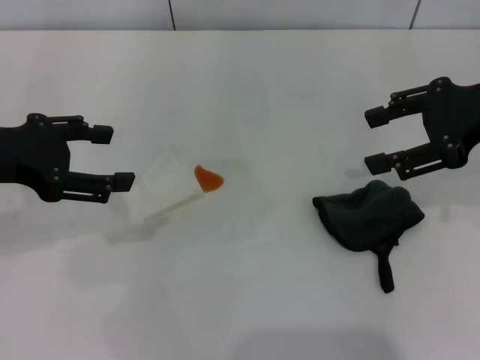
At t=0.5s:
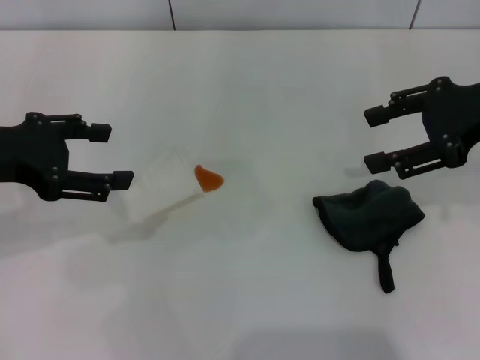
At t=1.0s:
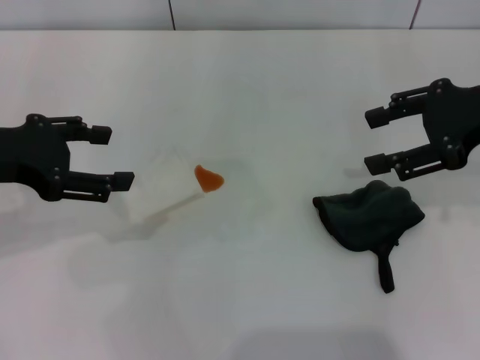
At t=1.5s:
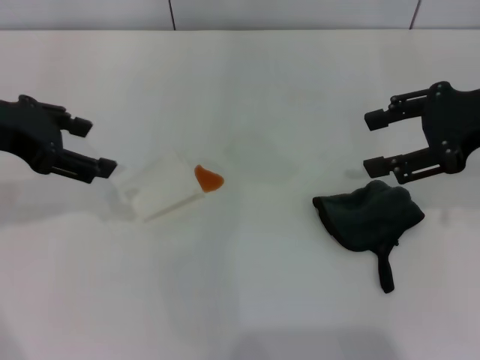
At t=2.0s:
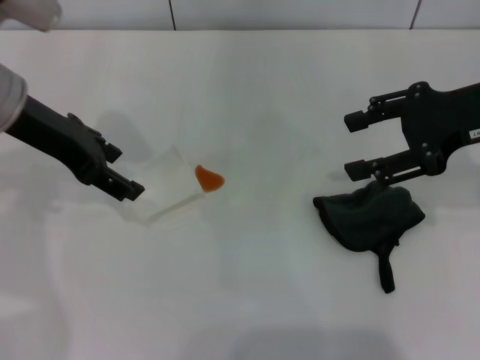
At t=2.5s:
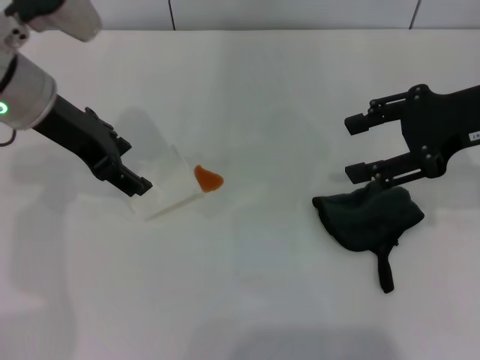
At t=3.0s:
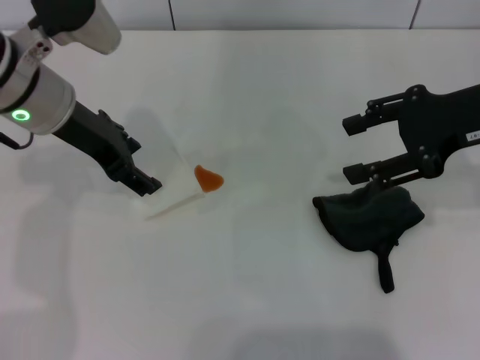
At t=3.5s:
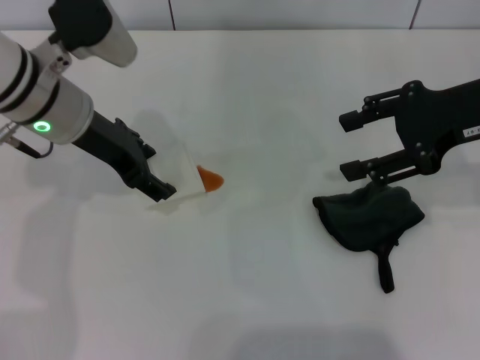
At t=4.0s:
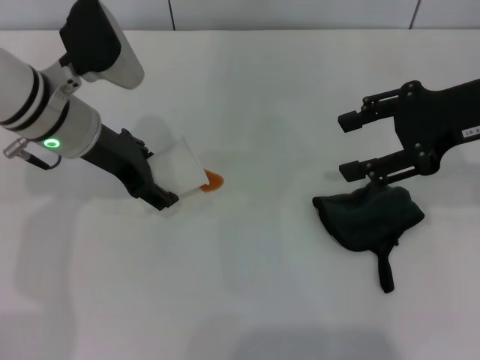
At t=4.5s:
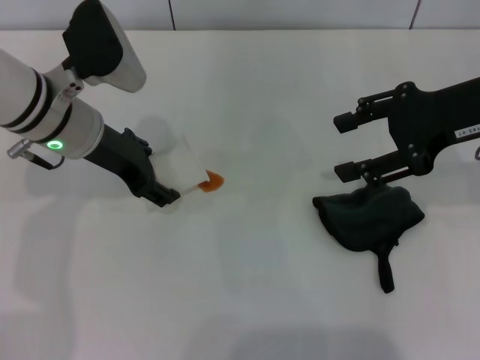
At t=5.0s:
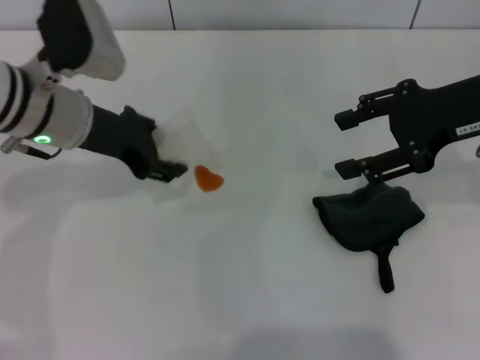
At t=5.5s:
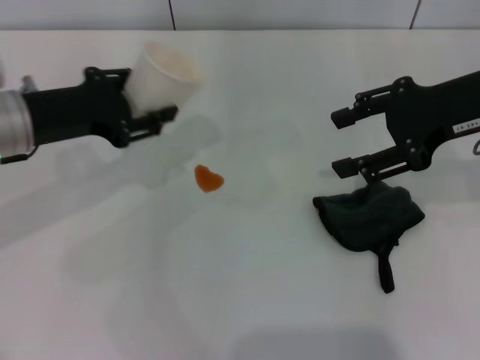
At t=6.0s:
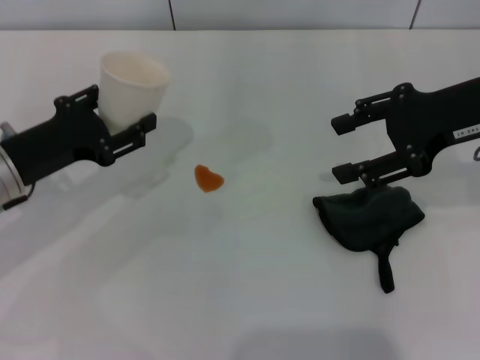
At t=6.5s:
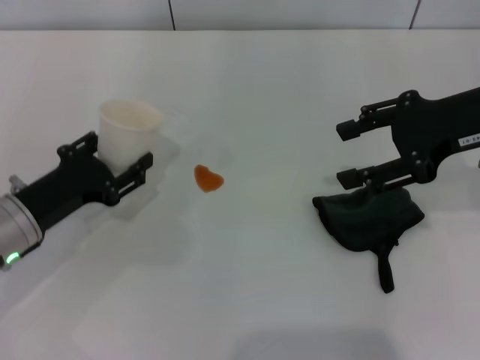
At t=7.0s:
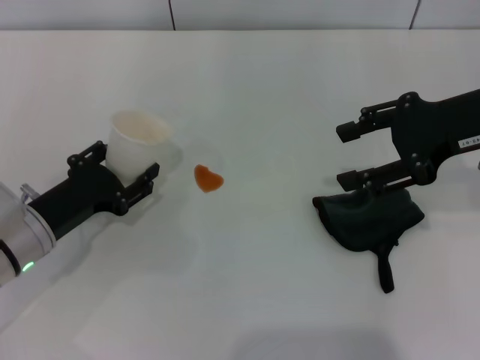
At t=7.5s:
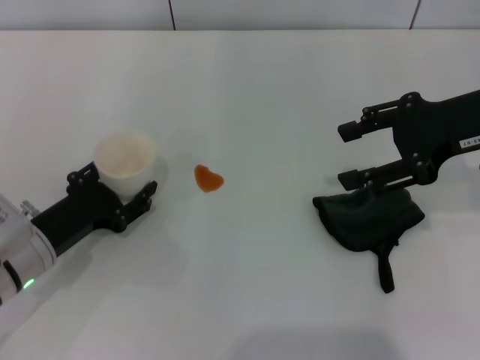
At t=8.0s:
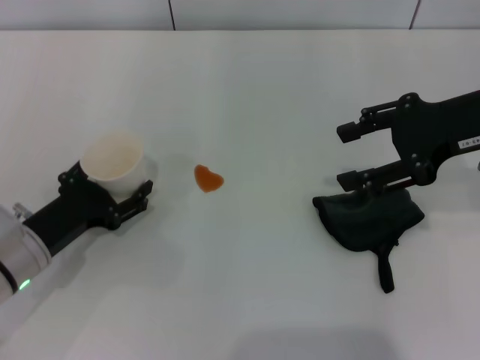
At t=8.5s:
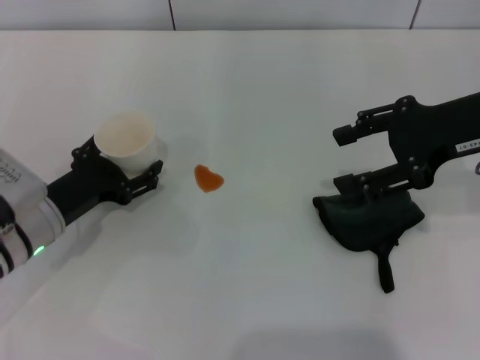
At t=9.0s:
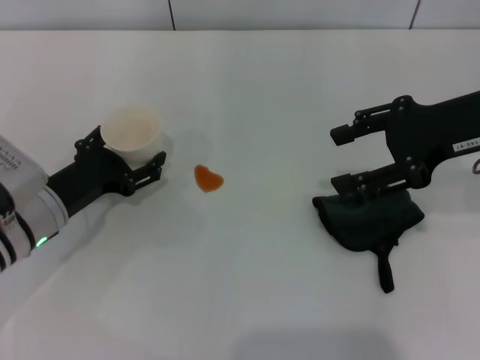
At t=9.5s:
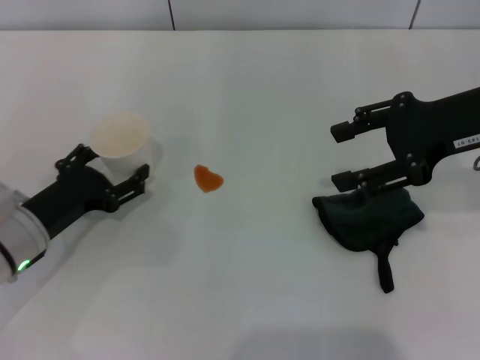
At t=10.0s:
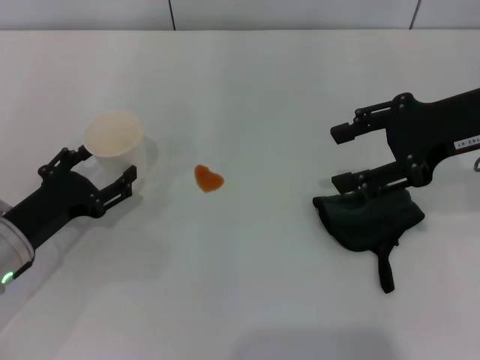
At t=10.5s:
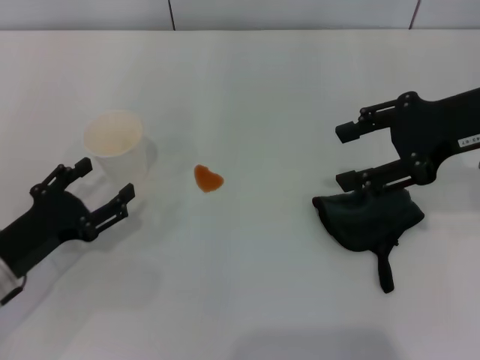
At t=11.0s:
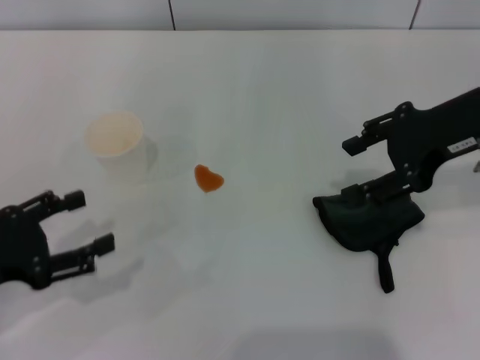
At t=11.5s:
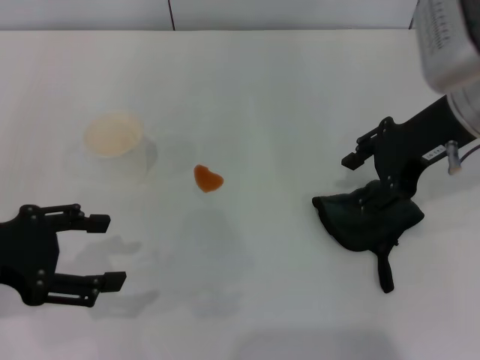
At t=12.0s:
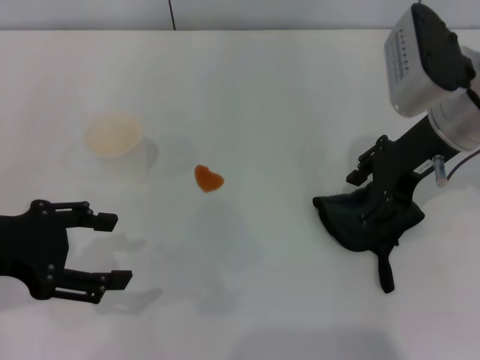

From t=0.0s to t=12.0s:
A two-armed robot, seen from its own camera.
Step, from t=0.0s to t=4.5s: Grasp the paper cup with the left gripper.
Step, from t=5.0s to t=10.0s: Stand the paper cup upright with the left gripper.
From t=0.0s to t=2.0s: The left gripper travels forward and to the right by approximately 10 cm.
From t=2.0s to t=4.0s: The left gripper goes roughly 5 cm downward.
From t=4.0s to t=6.0s: The left gripper shifts approximately 10 cm to the left, backward and downward, and closes.
From t=6.0s to t=8.0s: The left gripper heads downward and backward, covering about 10 cm.
From t=8.0s to t=10.0s: The left gripper opens up.
From t=10.0s to t=12.0s: The left gripper travels upward by approximately 15 cm. The right gripper travels to the left by some 5 cm.

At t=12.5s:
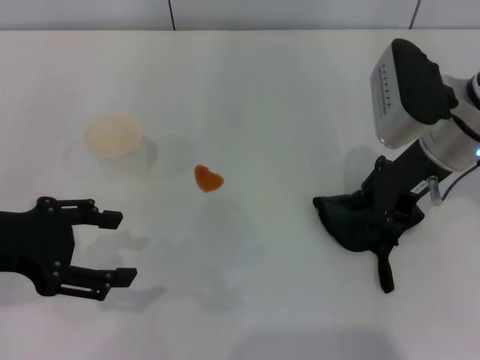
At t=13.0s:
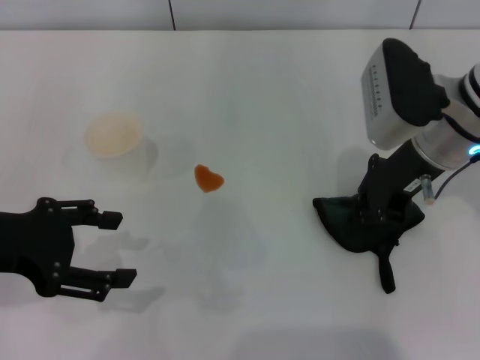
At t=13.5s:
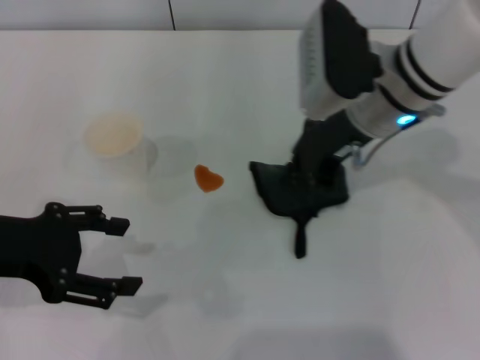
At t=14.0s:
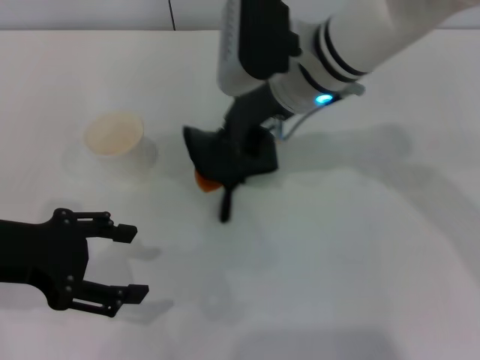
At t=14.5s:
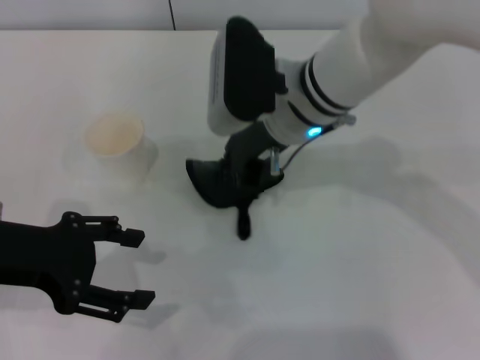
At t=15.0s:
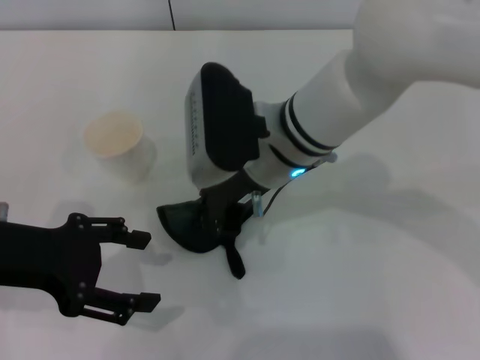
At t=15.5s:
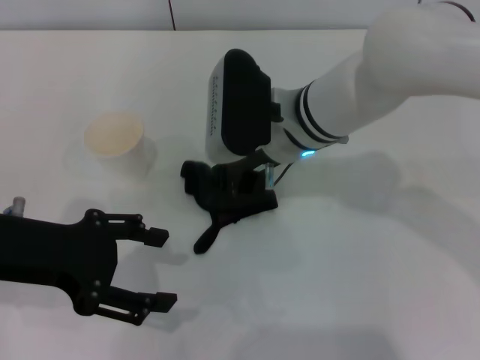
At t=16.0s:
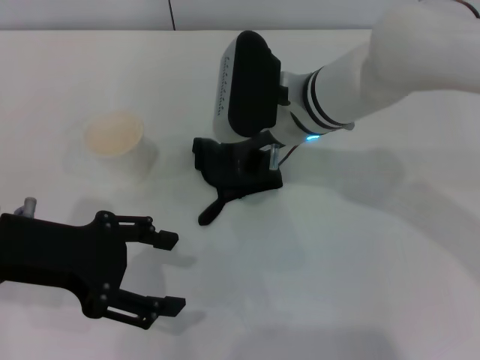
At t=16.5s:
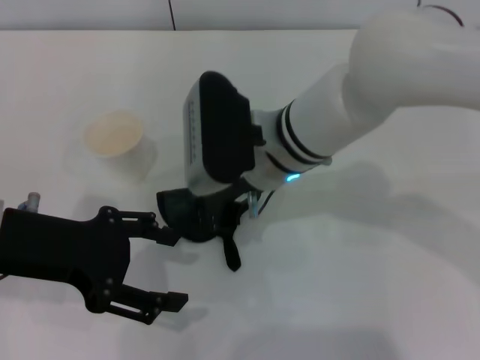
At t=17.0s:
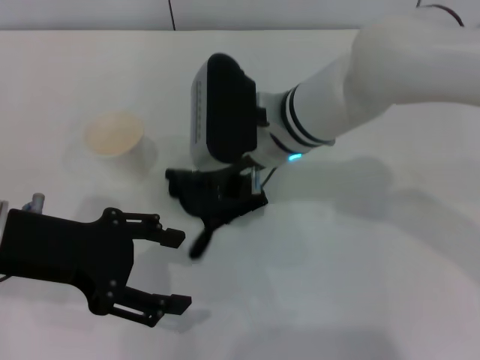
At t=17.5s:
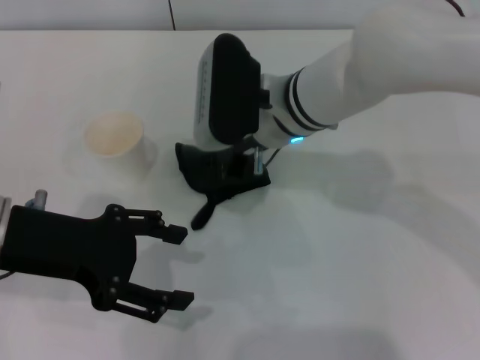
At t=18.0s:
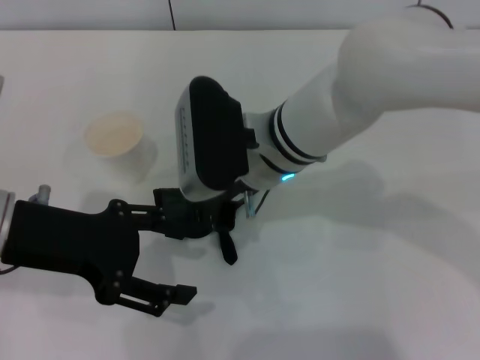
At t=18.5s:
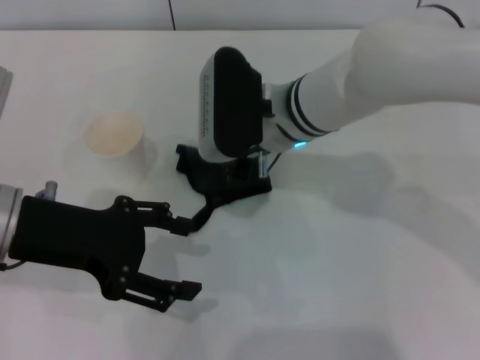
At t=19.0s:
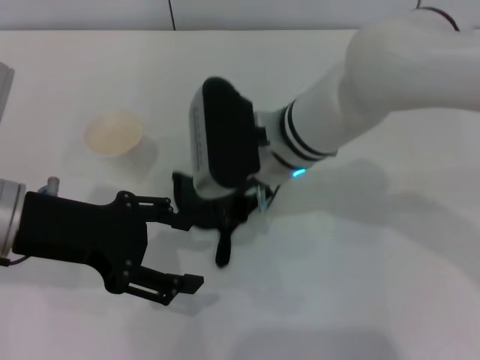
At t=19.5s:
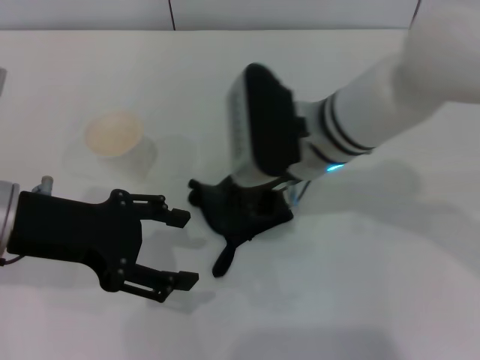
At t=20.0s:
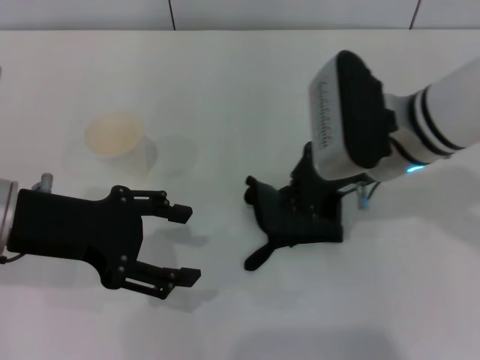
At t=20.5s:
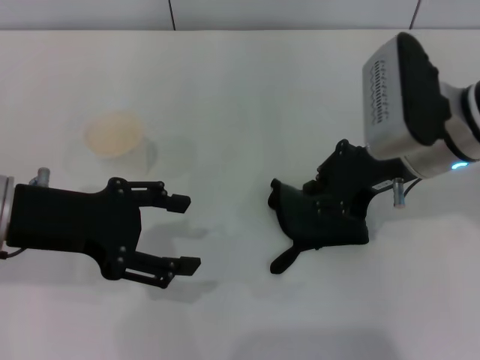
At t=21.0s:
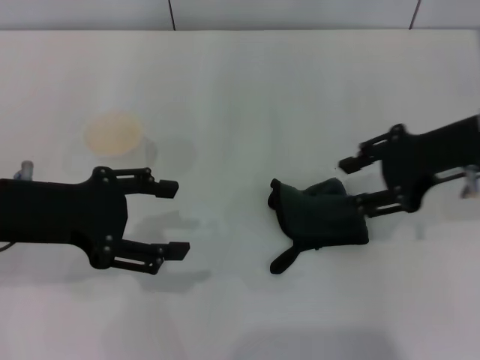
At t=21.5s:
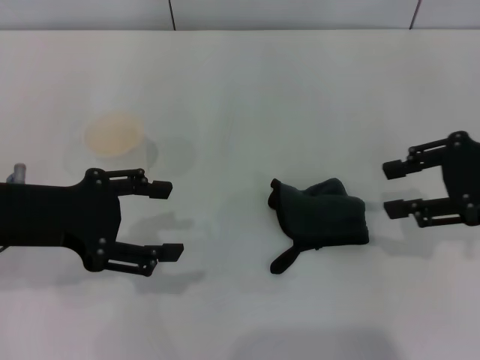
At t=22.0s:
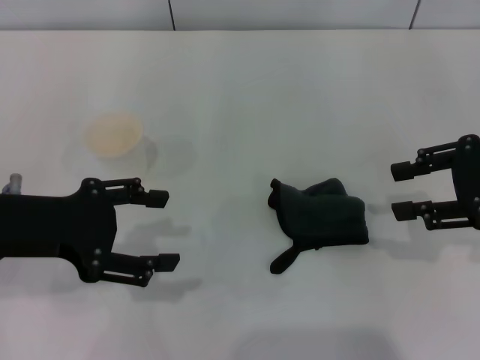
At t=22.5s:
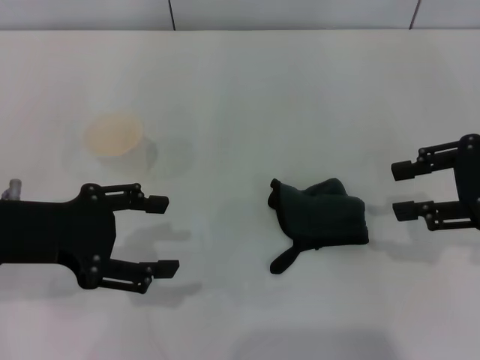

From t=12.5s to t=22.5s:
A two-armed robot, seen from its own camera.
Step, from t=13.0s to t=20.0s: Wipe the stains off the table with the right gripper.
Step, from t=20.5s to t=21.5s: Place the rag on the table with the right gripper.
From t=12.5s to t=14.5s: The right gripper heads to the left, covering roughly 15 cm, and closes up.
From t=14.5s to t=16.5s: The right gripper swings forward and backward, roughly 5 cm each way, with 2 reversals.
From t=16.5s to t=18.5s: The grippers move only a little.
From t=18.5s to t=20.5s: The right gripper goes roughly 15 cm to the right.
From t=20.5s to t=22.5s: The right gripper moves to the right, about 15 cm, and opens its fingers.

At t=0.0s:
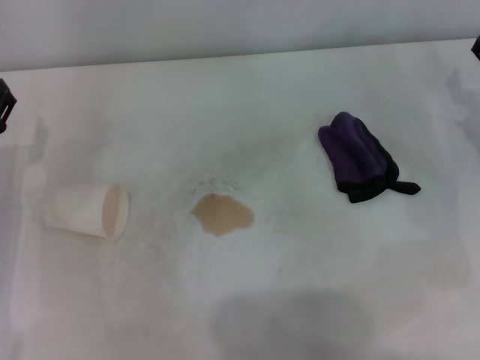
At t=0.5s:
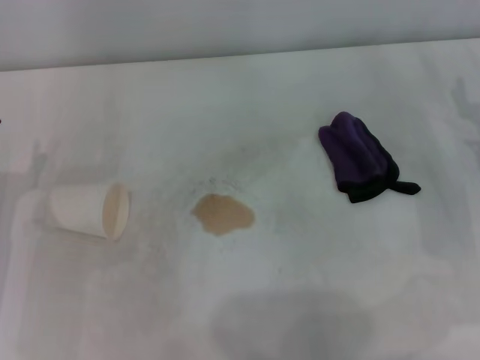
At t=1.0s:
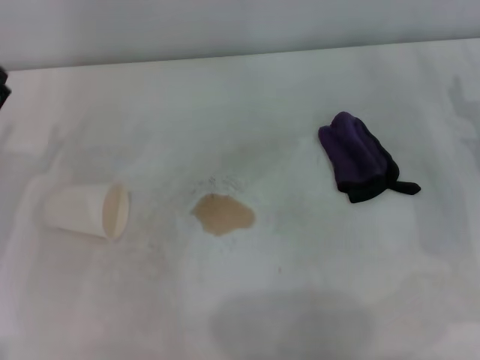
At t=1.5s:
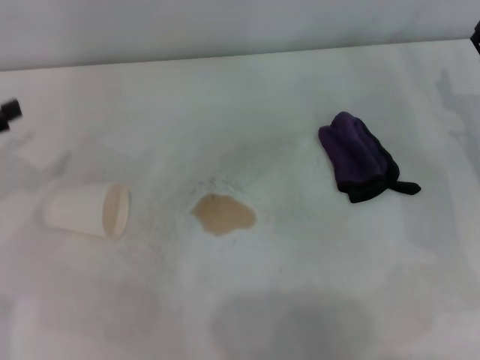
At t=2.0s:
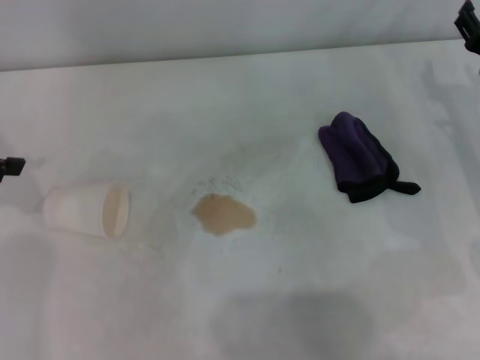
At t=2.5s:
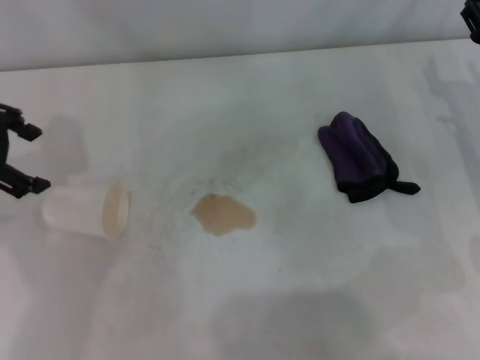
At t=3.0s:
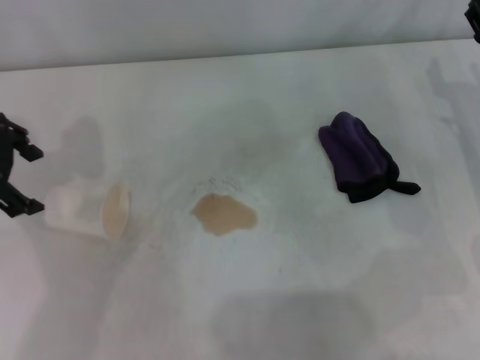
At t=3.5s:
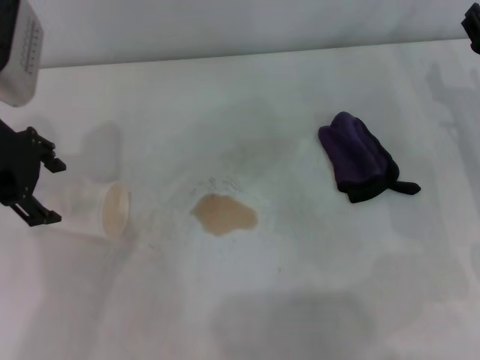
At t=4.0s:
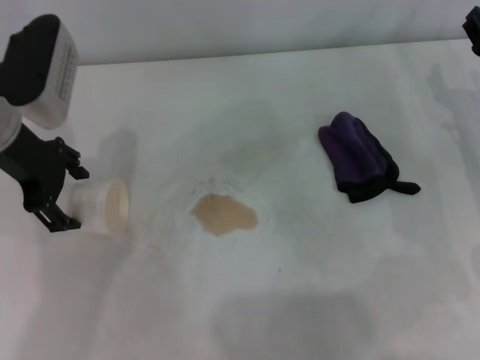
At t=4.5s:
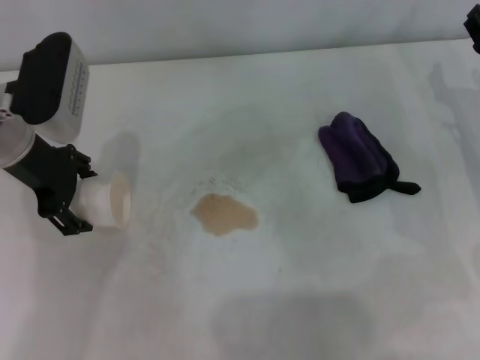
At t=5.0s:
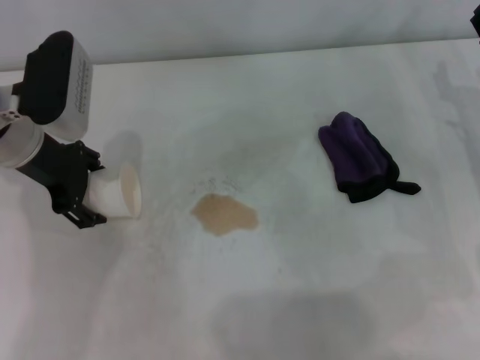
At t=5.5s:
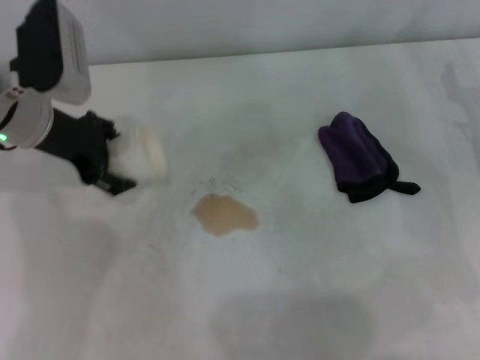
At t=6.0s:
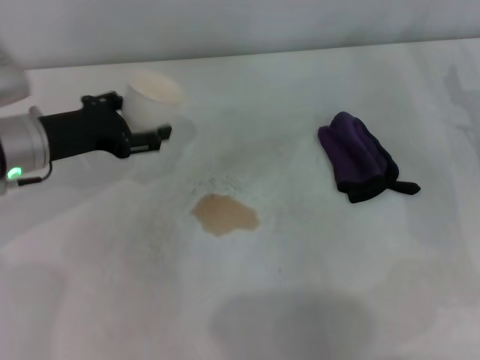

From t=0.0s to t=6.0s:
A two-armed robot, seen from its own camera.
Step, from t=0.0s to t=4.5s: Grasp the paper cup with the left gripper.
From t=0.0s to t=2.0s: The left gripper heads upward and to the left, covering approximately 20 cm.
From t=2.0s to t=4.0s: The left gripper heads to the right, covering about 15 cm.
From t=4.0s to t=6.0s: The left gripper travels downward by some 5 cm.
